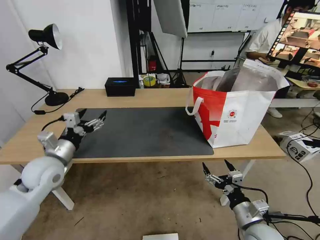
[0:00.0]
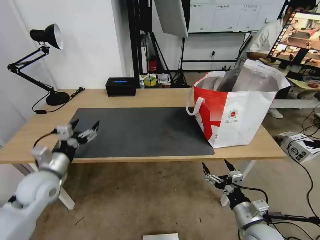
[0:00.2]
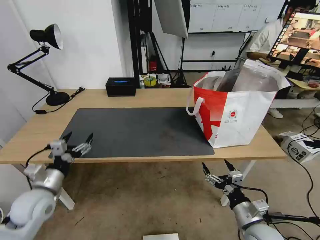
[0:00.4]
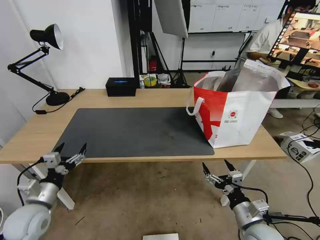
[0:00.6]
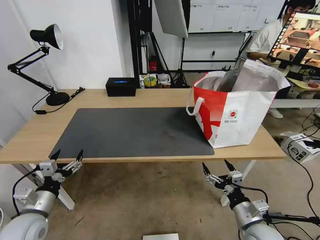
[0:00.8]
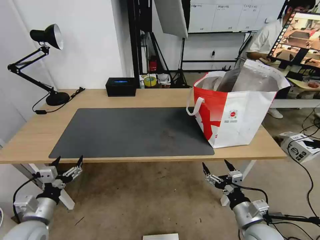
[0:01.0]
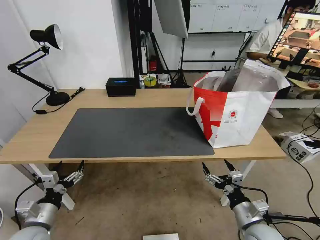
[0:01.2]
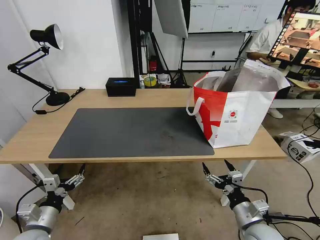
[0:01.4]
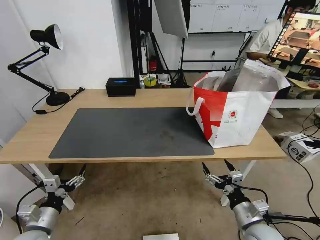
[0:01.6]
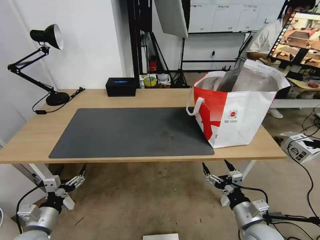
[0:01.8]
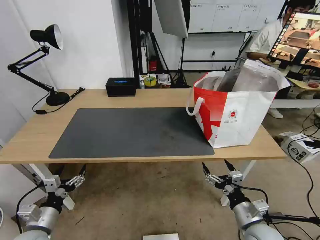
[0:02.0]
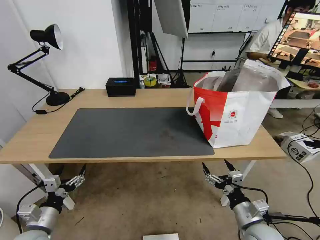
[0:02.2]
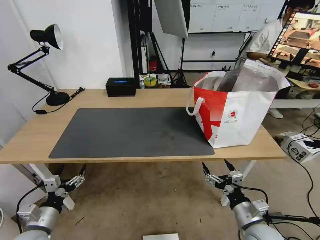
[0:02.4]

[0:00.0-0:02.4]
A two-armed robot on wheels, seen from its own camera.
Task of the whole recording: Pick up the trash from the table and place it into the takeout bag.
0:00.0 to 0:01.2: The left gripper goes roughly 20 cm backward and downward.
0:01.2 to 0:02.4: Neither gripper changes place.

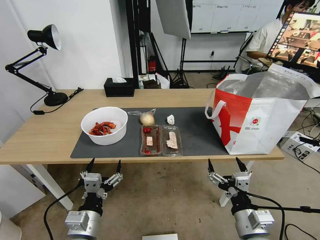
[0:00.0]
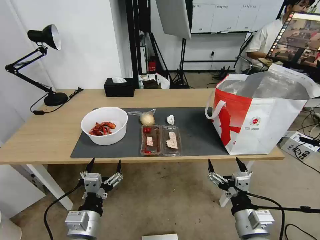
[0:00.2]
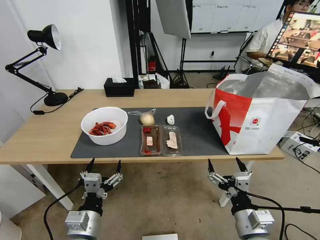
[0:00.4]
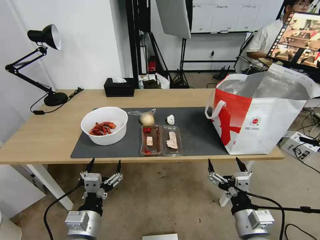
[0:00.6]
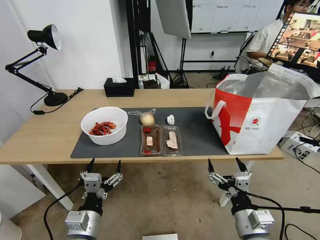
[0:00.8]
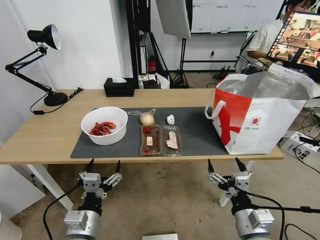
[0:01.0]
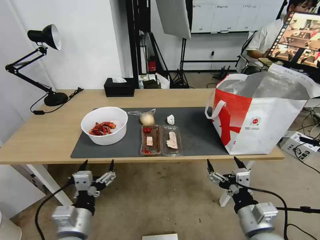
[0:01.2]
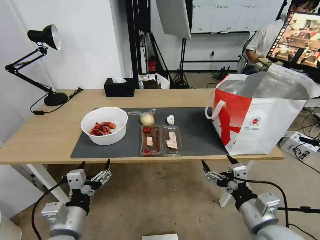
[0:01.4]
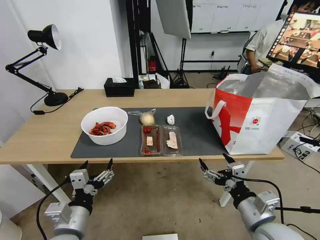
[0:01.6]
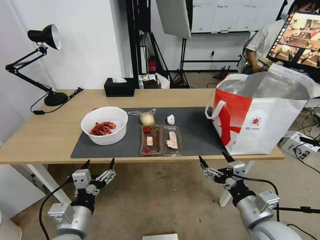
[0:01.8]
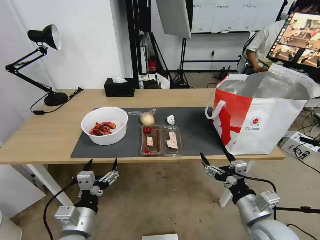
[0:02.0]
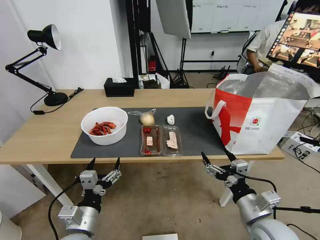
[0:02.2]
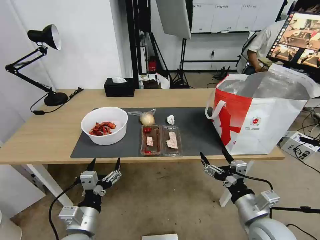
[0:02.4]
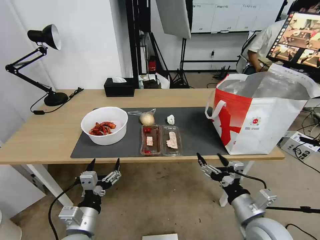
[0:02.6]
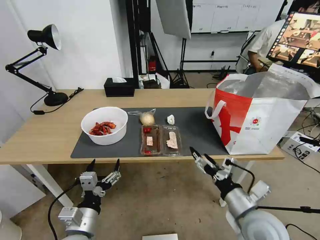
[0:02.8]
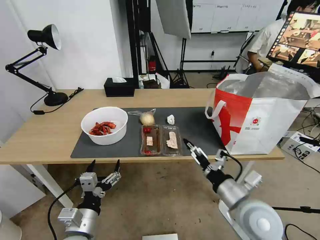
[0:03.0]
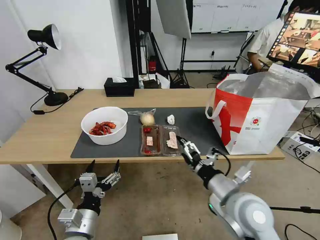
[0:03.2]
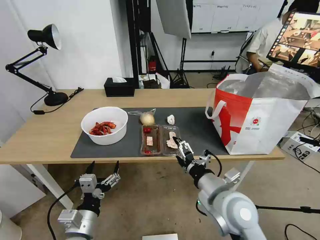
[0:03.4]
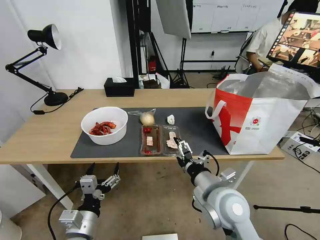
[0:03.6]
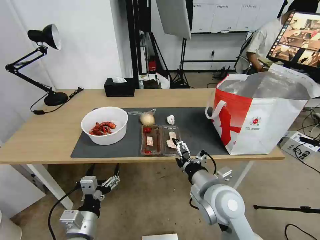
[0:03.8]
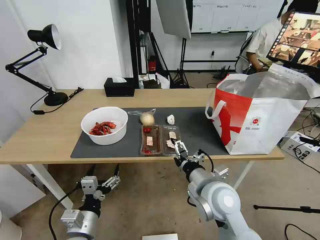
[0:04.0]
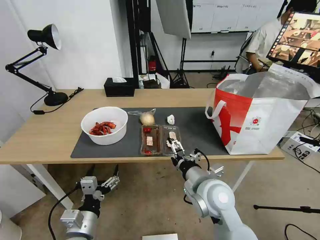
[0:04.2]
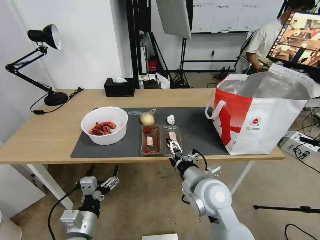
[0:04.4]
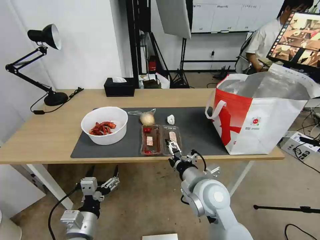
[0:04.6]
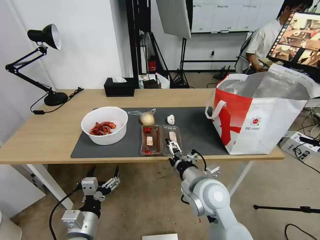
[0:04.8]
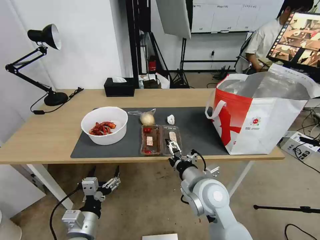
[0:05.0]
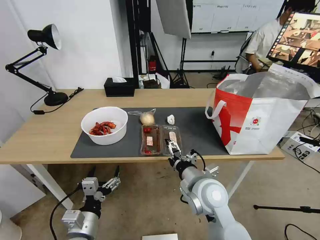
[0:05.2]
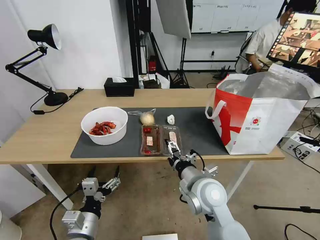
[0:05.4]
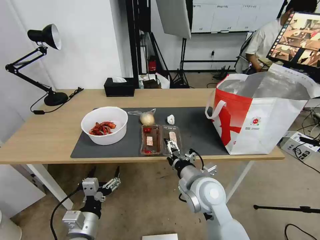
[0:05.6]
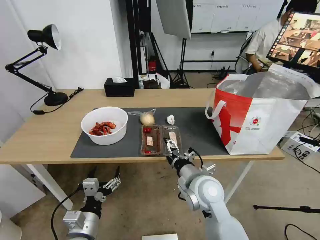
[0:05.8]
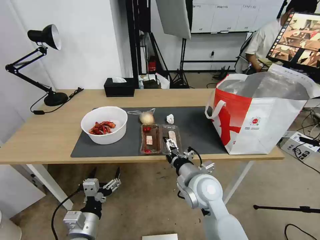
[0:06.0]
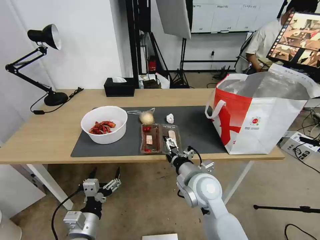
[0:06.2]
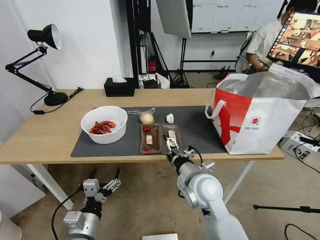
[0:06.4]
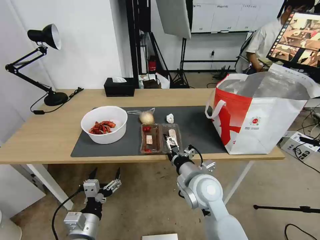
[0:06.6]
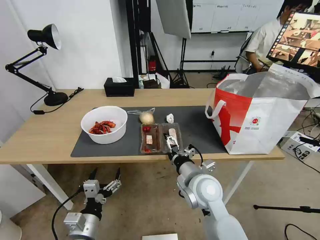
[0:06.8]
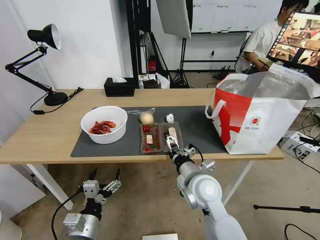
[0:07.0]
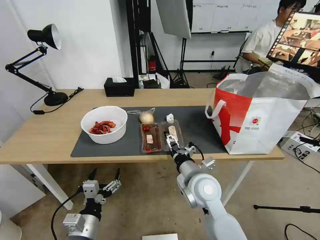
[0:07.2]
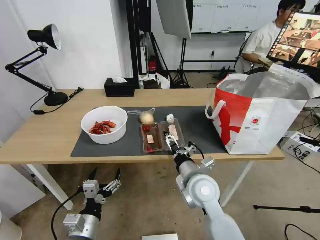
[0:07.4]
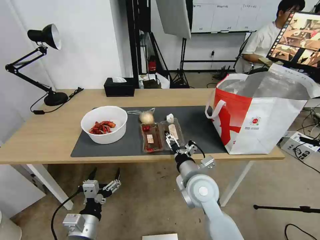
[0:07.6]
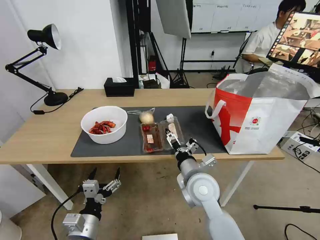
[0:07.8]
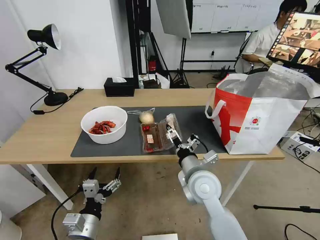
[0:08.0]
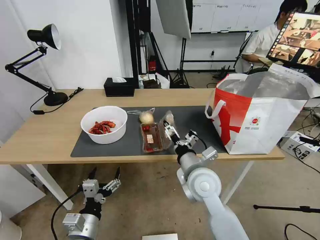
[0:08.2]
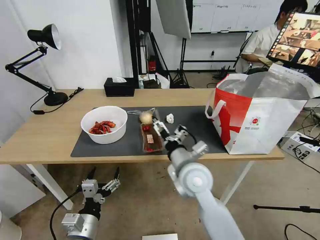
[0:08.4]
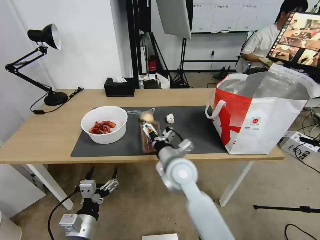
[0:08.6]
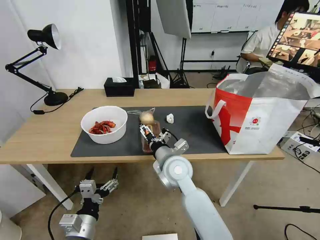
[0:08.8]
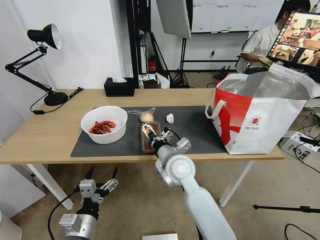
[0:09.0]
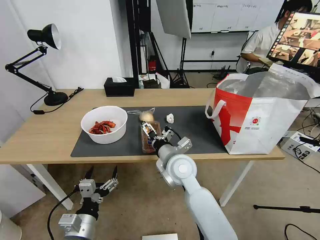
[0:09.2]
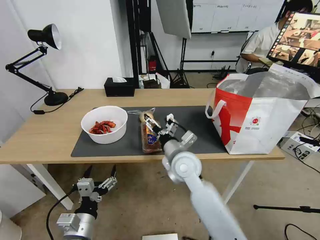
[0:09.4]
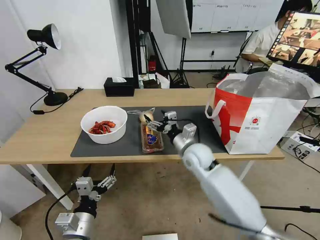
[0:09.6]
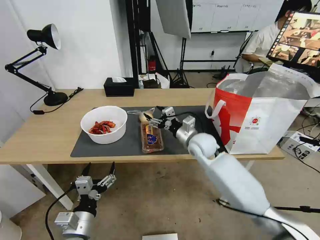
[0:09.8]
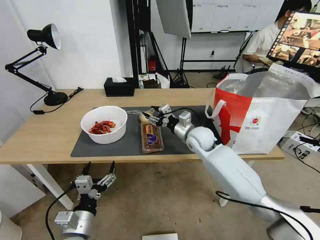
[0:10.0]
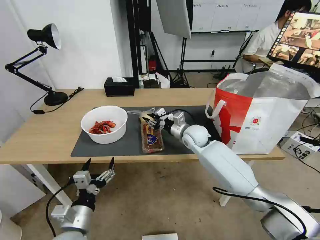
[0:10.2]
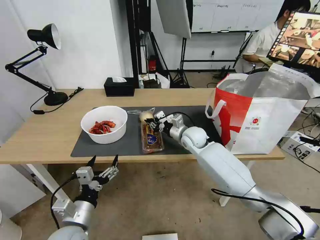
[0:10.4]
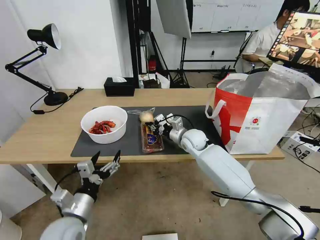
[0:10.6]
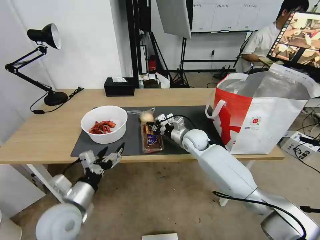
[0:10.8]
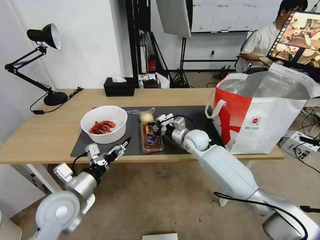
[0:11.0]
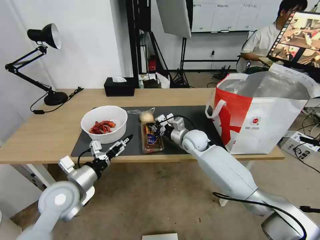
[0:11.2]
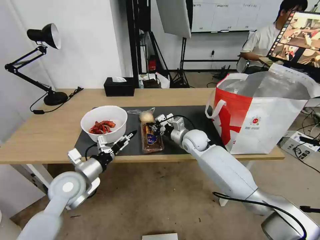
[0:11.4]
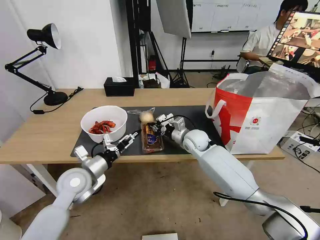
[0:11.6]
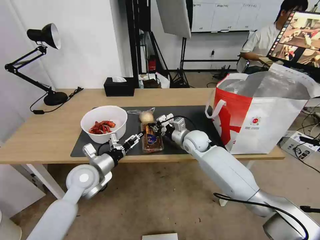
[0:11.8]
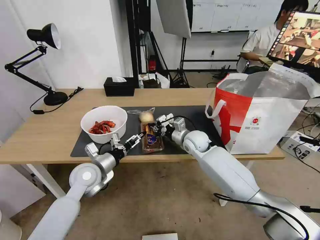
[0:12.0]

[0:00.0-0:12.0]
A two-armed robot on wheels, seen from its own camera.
Task of the whole recording: Pick up the trash from the table and place it into the takeout bag.
0:01.6 to 0:03.0: The right gripper moves approximately 5 cm.
0:03.0 to 0:04.4: The right gripper is displaced to the left and forward by roughly 10 cm.
0:04.4 to 0:07.6: The grippers stay close to where they were, moving slightly.
0:07.6 to 0:09.0: The right gripper travels to the left and forward by roughly 10 cm.
0:09.0 to 0:10.4: The right gripper moves forward and to the right, roughly 20 cm, and closes up.
0:10.4 to 0:12.0: The left gripper heads forward, covering approximately 15 cm.

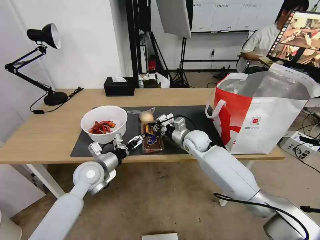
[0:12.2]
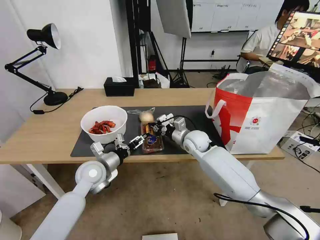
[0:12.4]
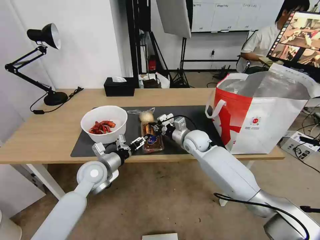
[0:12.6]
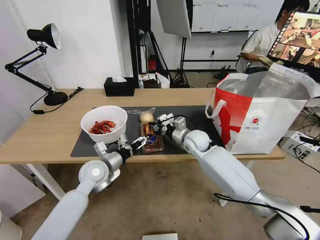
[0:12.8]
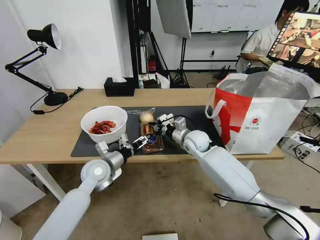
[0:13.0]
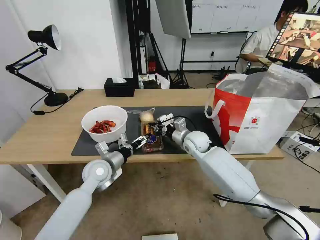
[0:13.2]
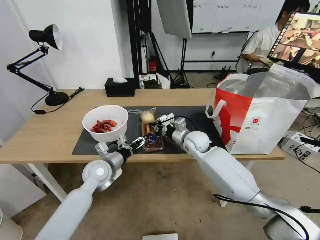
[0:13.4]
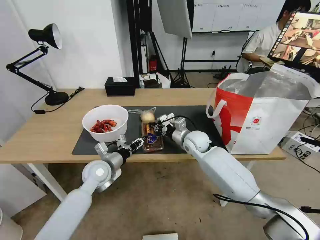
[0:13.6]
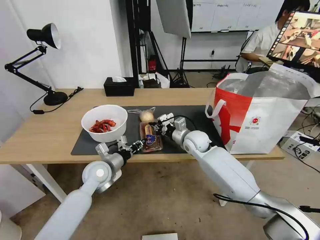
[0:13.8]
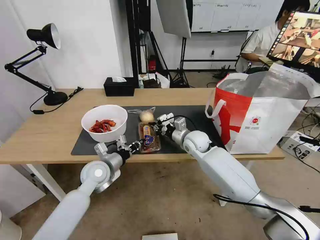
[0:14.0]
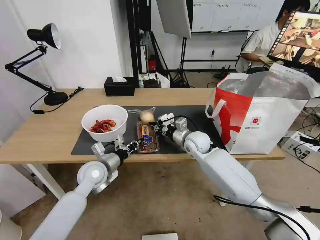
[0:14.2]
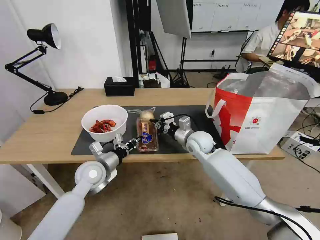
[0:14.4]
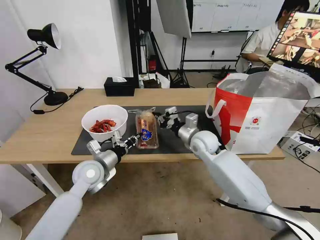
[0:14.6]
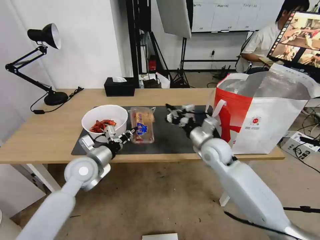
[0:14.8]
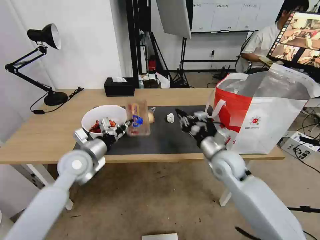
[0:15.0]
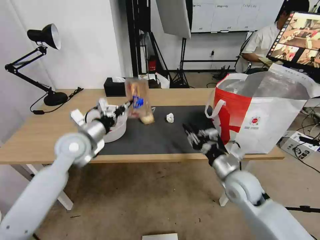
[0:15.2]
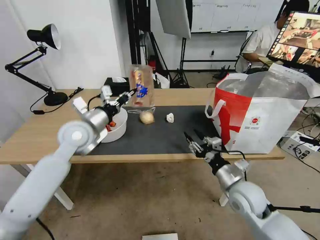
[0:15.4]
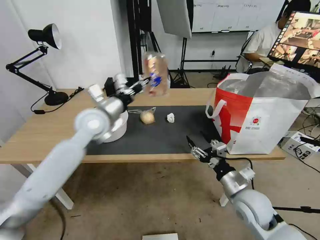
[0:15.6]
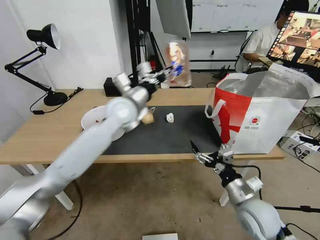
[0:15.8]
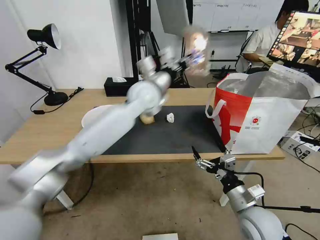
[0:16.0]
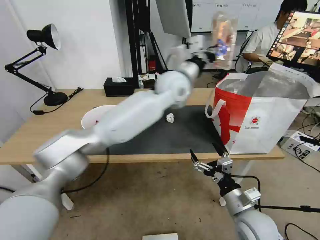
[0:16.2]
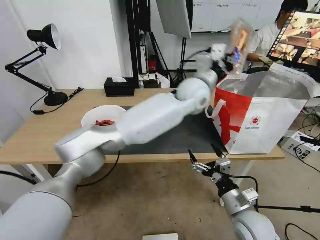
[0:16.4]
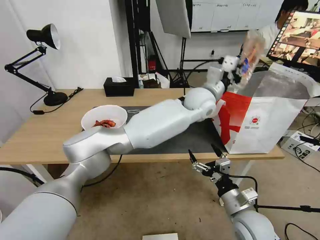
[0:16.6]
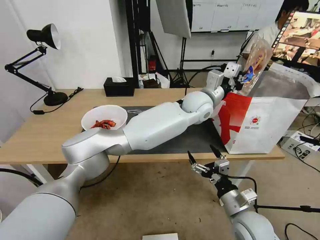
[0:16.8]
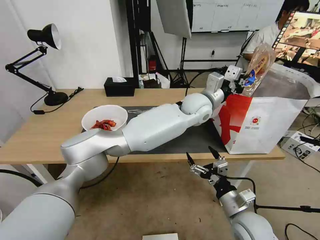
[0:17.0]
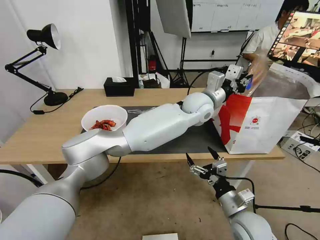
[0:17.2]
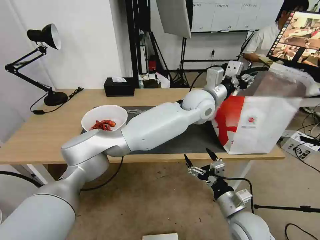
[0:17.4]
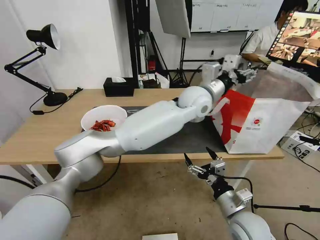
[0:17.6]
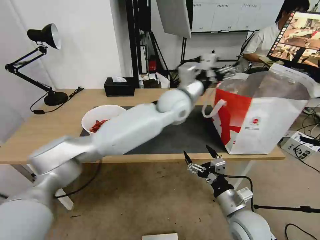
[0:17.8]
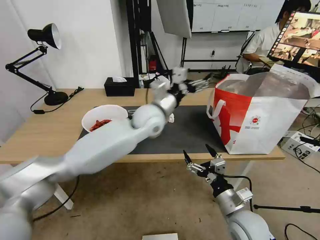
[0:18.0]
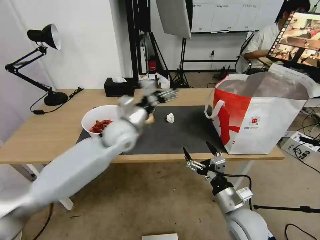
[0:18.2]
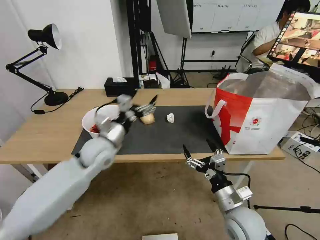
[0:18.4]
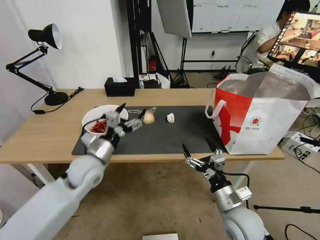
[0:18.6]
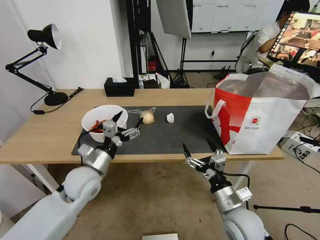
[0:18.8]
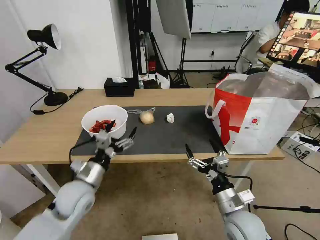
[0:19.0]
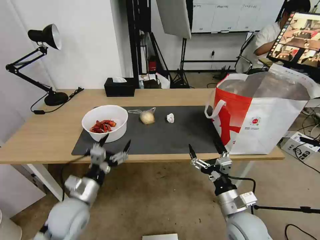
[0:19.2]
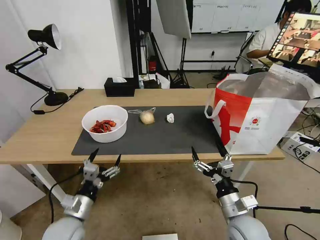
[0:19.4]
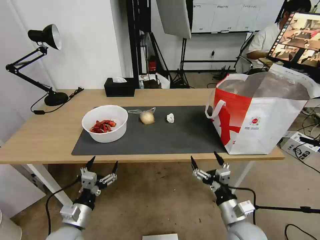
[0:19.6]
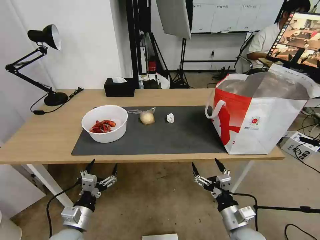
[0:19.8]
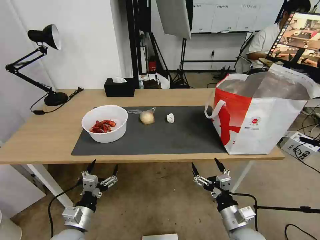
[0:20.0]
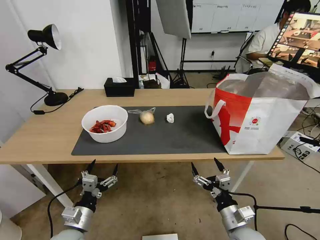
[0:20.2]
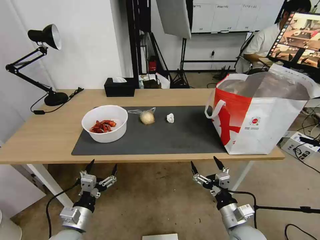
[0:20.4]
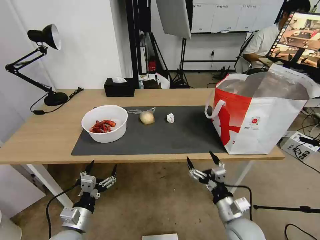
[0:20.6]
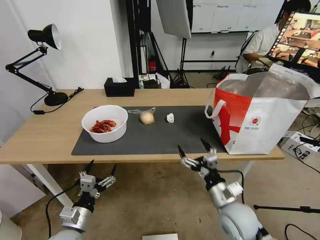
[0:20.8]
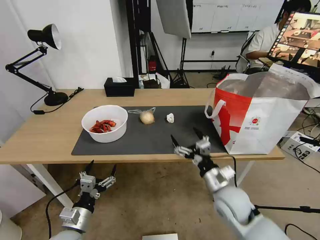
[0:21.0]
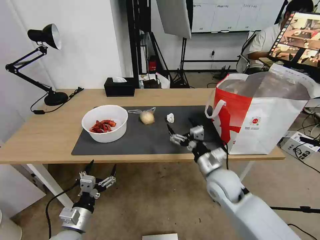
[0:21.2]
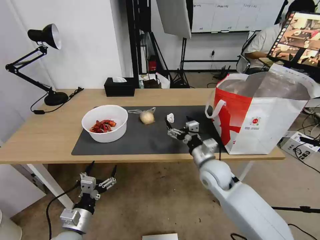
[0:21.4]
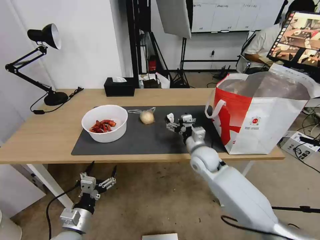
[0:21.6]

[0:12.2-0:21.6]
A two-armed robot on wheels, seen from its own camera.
Task of the whole recording: Pick up the trash from the table and place it into the takeout bag.
0:12.2 to 0:13.8: The left gripper closes up.
0:13.8 to 0:15.4: The left gripper travels upward by approximately 15 cm, while the right gripper is displaced backward and to the right by roughly 25 cm, and opens its fingers.
0:15.4 to 0:17.0: The right gripper shifts roughly 10 cm backward, and opens up, while the left gripper heads to the right, covering about 35 cm.
0:17.0 to 0:18.4: The left gripper moves to the left, approximately 30 cm, and opens its fingers.
0:18.4 to 0:20.0: The left gripper is displaced backward and downward by some 25 cm; the right gripper moves downward, roughly 5 cm.
0:20.0 to 0:21.6: The right gripper is displaced forward by some 25 cm.
